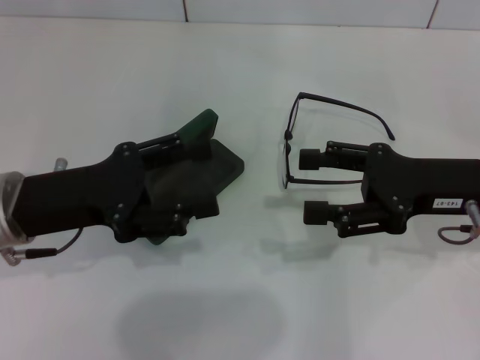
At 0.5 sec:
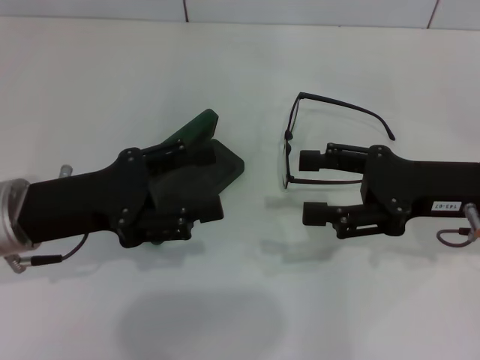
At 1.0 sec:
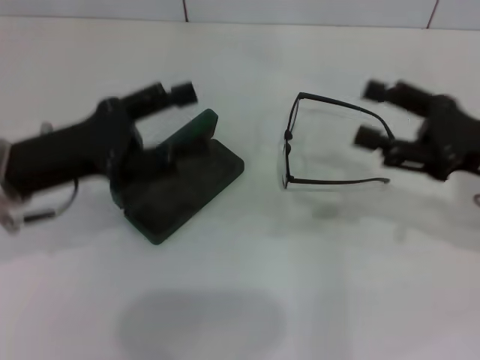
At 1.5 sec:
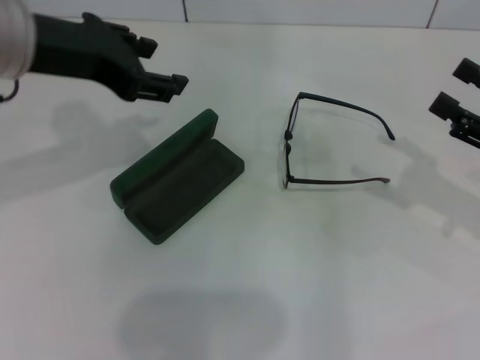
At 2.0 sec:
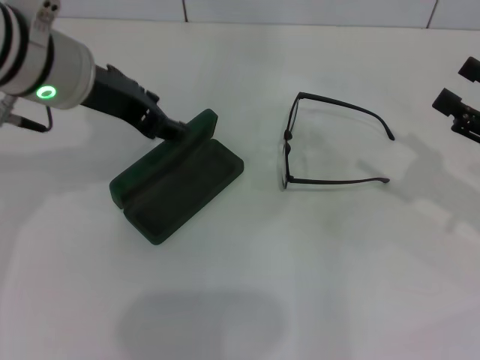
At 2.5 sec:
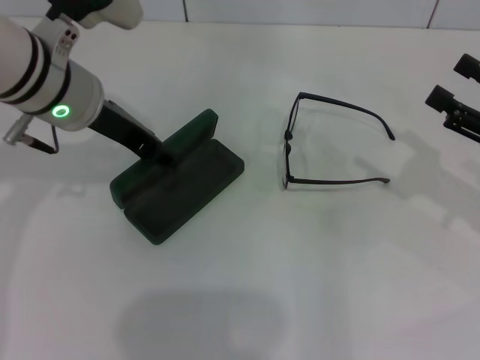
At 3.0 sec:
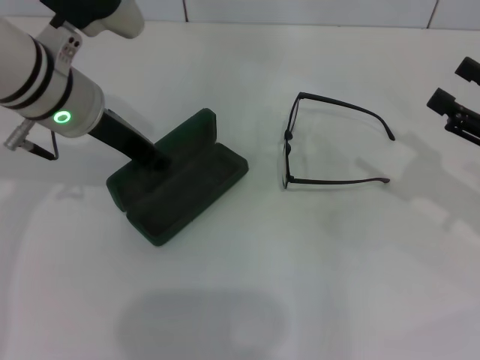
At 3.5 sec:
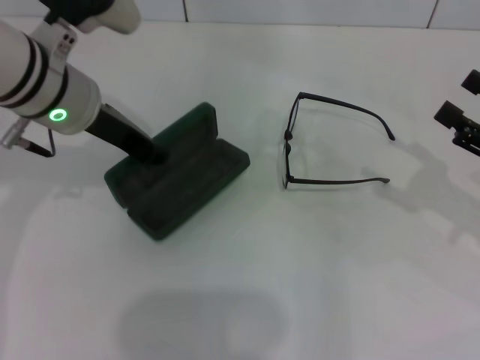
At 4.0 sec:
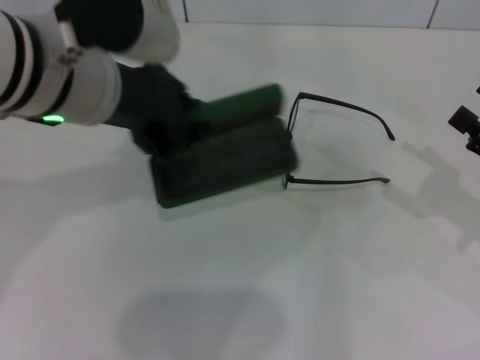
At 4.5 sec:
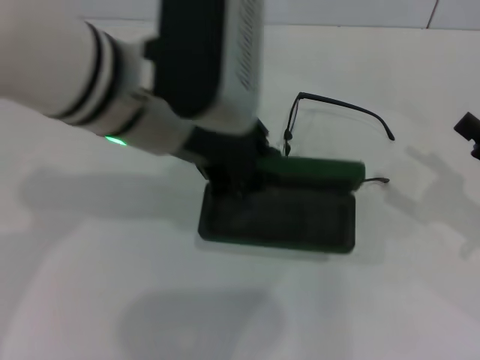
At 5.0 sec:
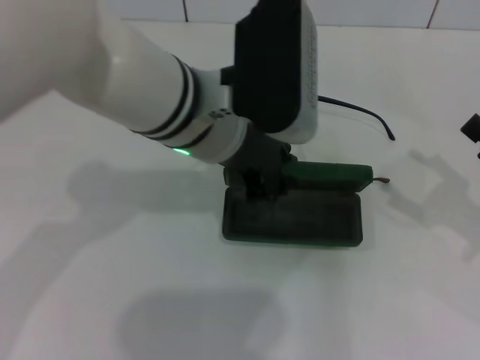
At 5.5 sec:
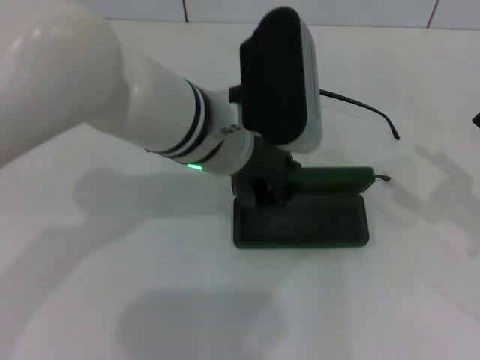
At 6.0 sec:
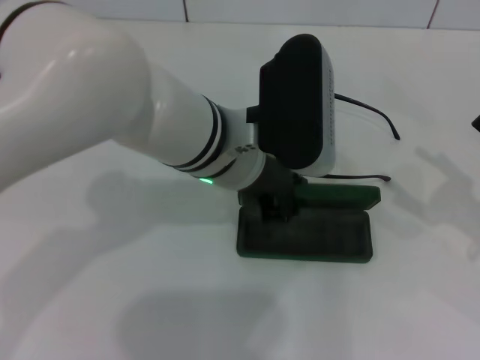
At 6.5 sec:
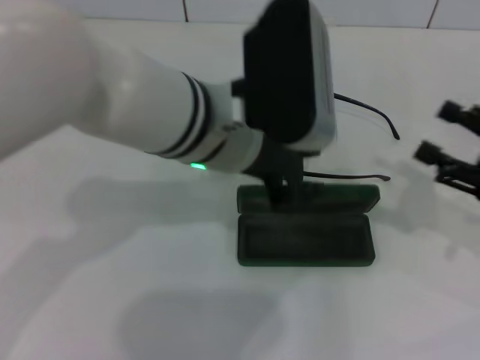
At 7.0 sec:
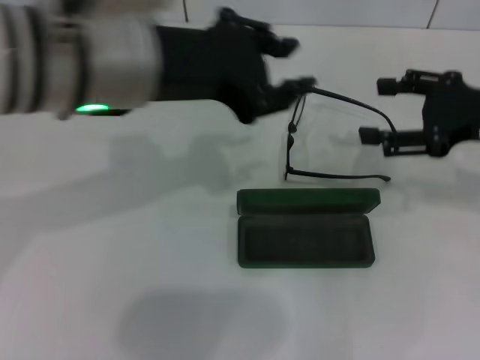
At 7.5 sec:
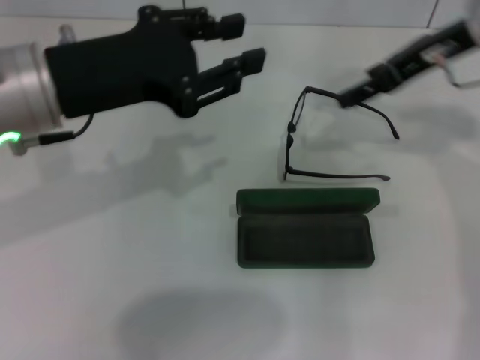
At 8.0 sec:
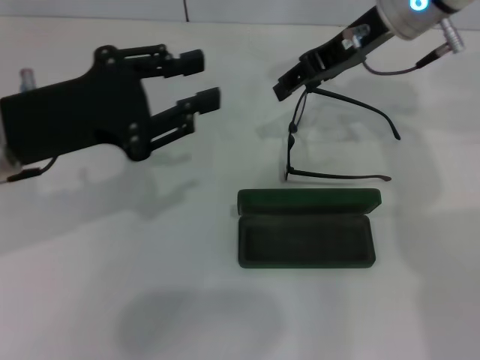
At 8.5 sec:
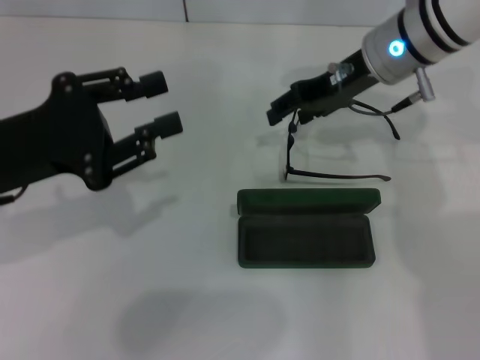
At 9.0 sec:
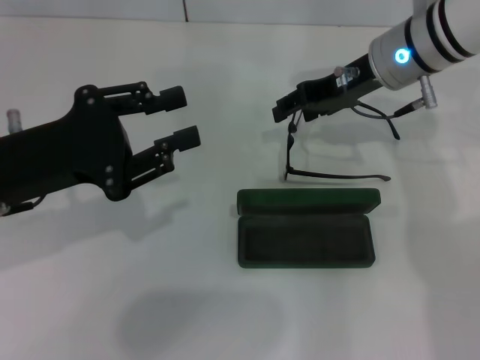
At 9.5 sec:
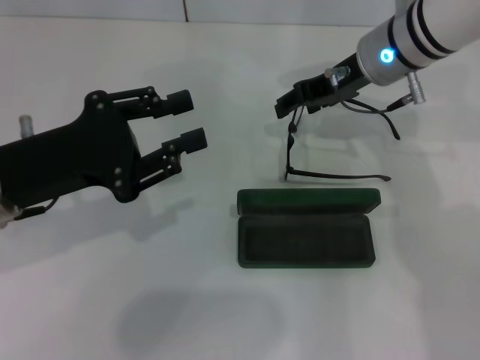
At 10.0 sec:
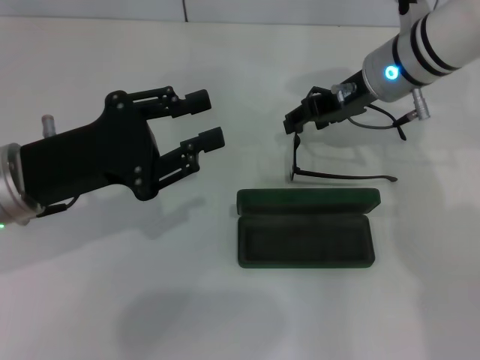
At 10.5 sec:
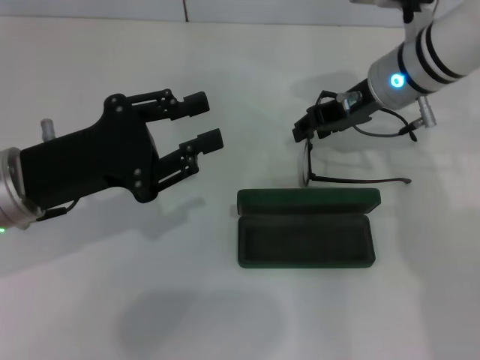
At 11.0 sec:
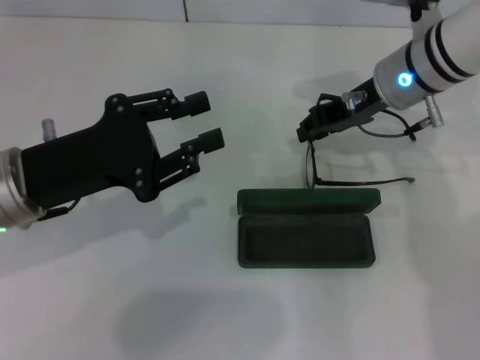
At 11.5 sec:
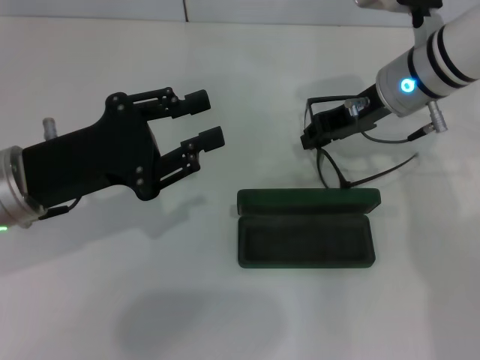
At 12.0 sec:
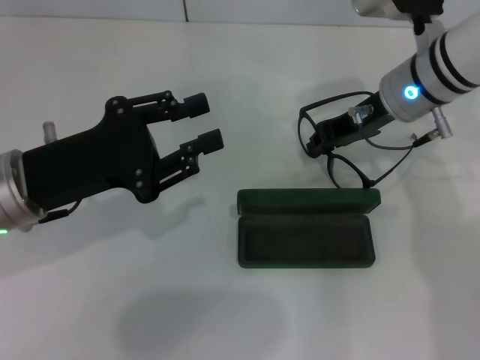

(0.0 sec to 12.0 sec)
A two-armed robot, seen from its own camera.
Step, 0.0 sec - 3.0 sec: Grab the glasses case with your left hand.
Step, 3.5 sec - 6.0 sec: Place the glasses case in the center of the table with your left hand.
Step, 6.5 sec - 11.0 sec: Grab the eyeglass frame with your right hand.
0.0 sec - 2.0 sec: The left gripper travels upward, forward and to the right by about 15 cm, while the right gripper heads to the right, covering roughly 10 cm.
2.0 sec - 4.0 sec: The left gripper moves about 5 cm, and closes its fingers.
4.0 sec - 6.0 sec: The left gripper travels to the right and downward by some 15 cm.
6.0 sec - 8.0 sec: The right gripper shifts roughly 35 cm to the left, forward and upward, while the left gripper moves to the left, approximately 20 cm.
8.0 sec - 10.0 sec: The left gripper goes roughly 5 cm downward, while the right gripper travels downward by some 10 cm.
10.0 sec - 12.0 sec: The right gripper closes up.

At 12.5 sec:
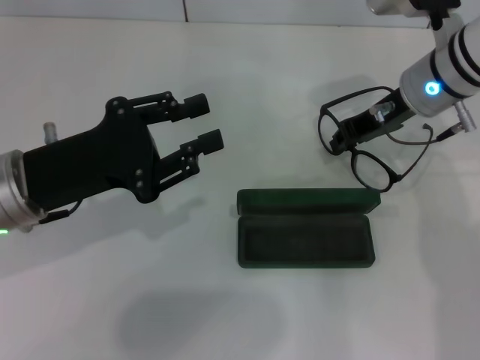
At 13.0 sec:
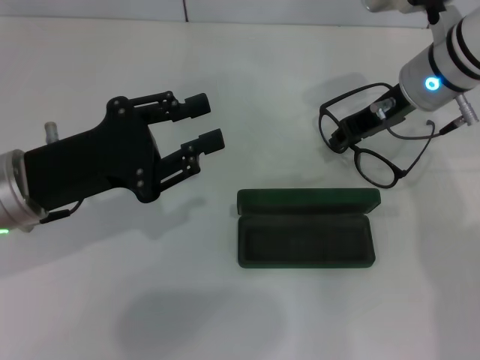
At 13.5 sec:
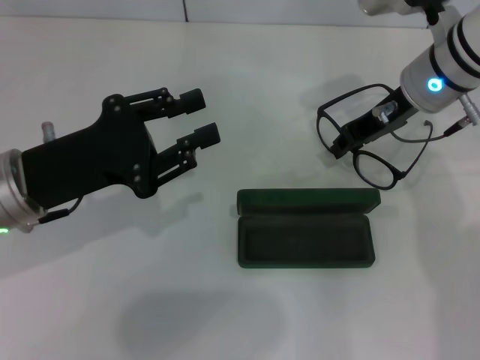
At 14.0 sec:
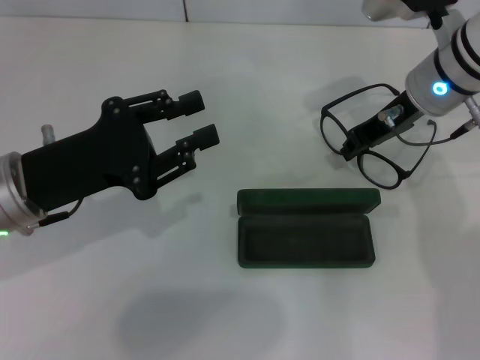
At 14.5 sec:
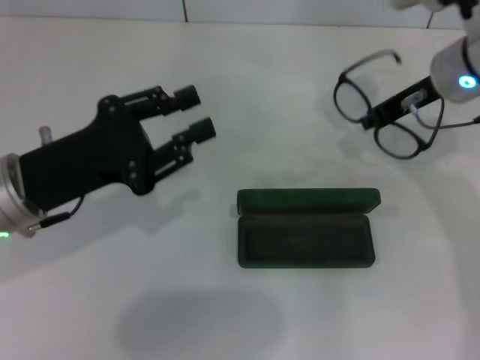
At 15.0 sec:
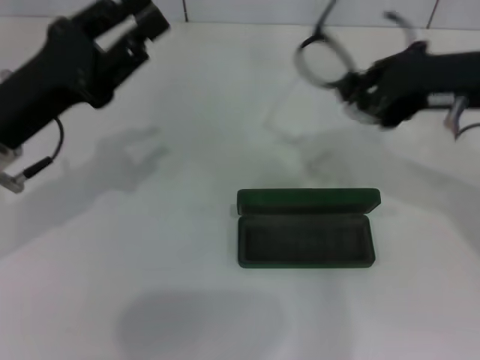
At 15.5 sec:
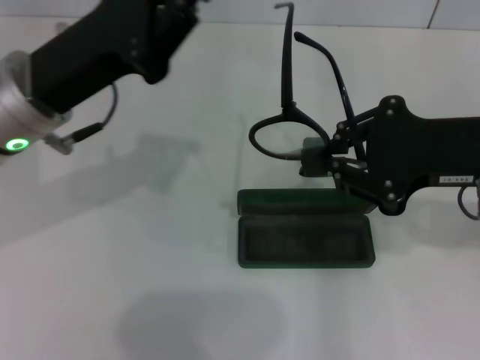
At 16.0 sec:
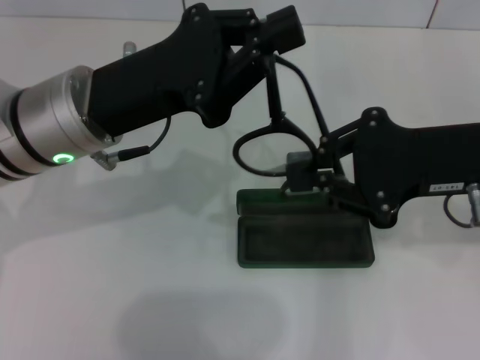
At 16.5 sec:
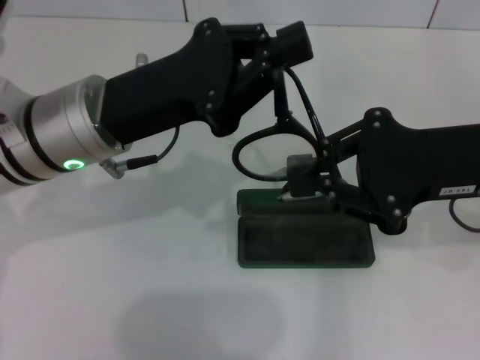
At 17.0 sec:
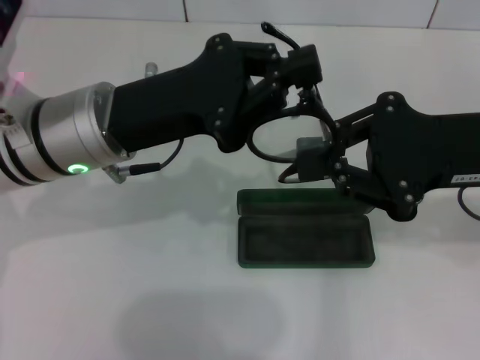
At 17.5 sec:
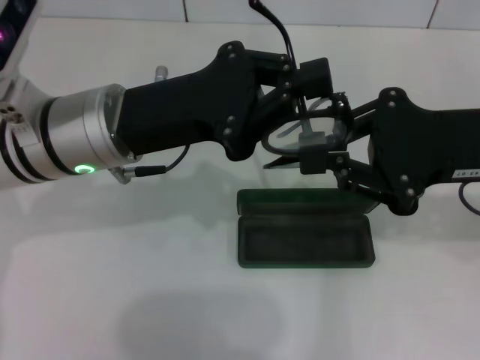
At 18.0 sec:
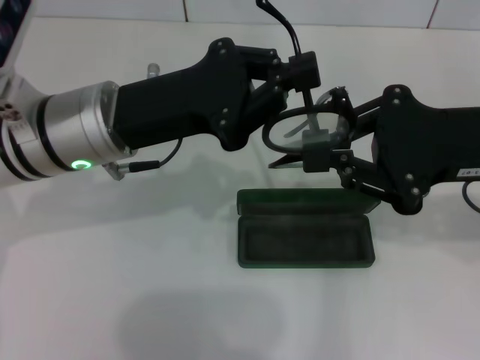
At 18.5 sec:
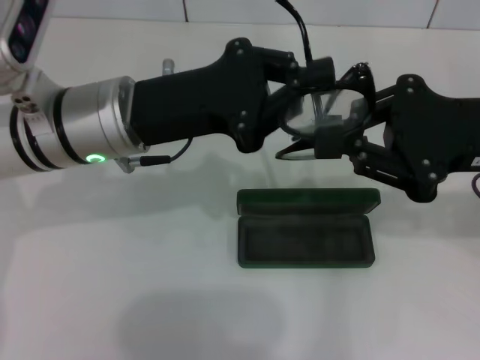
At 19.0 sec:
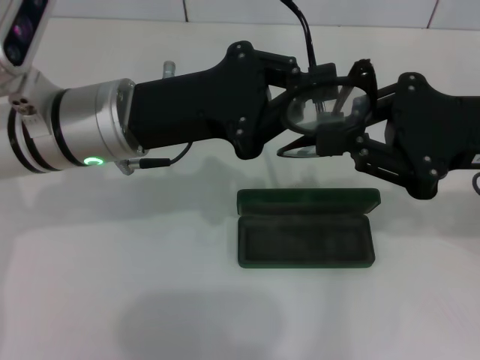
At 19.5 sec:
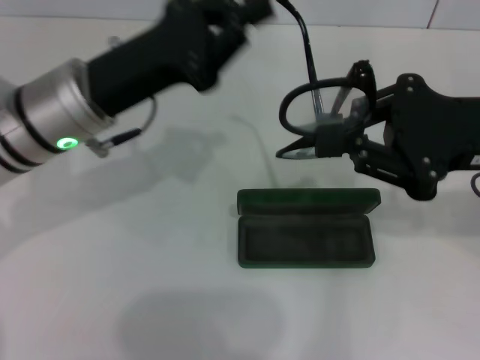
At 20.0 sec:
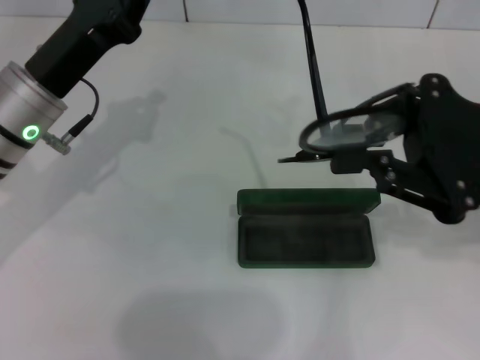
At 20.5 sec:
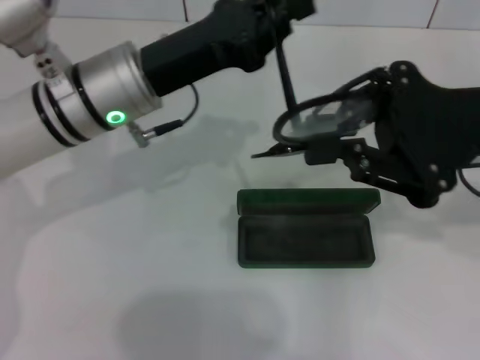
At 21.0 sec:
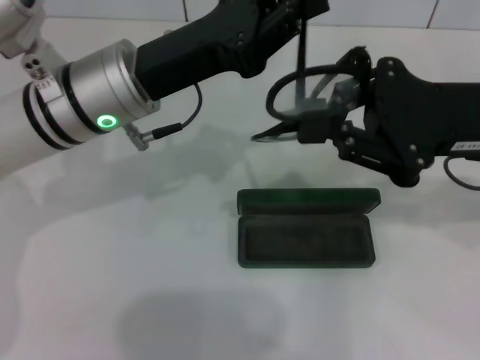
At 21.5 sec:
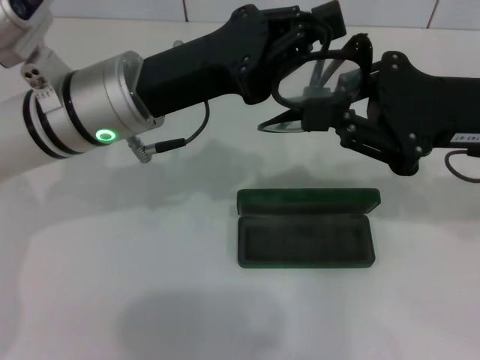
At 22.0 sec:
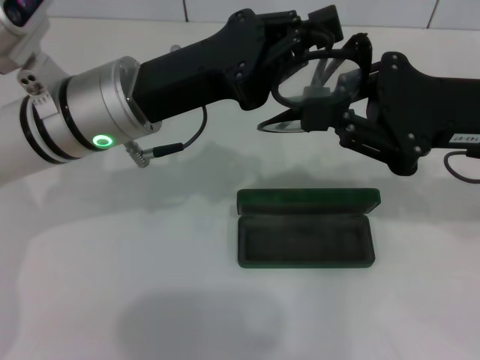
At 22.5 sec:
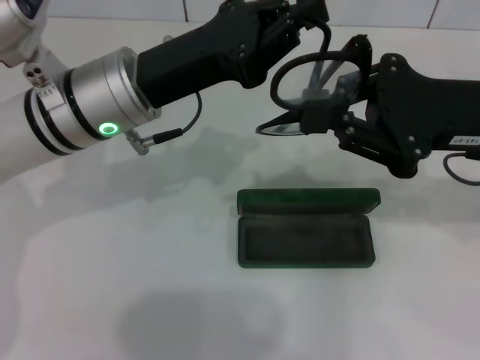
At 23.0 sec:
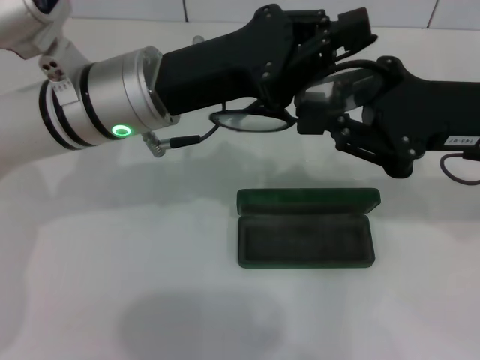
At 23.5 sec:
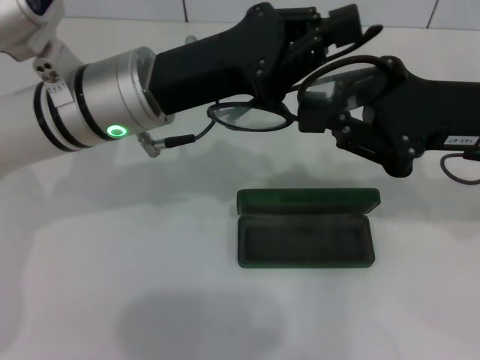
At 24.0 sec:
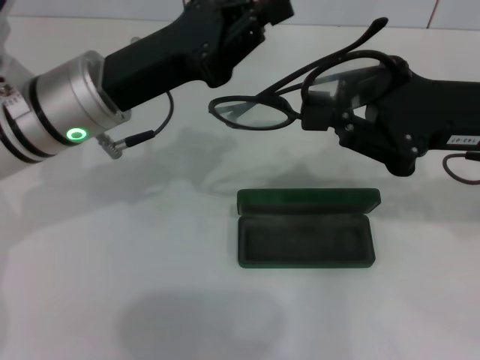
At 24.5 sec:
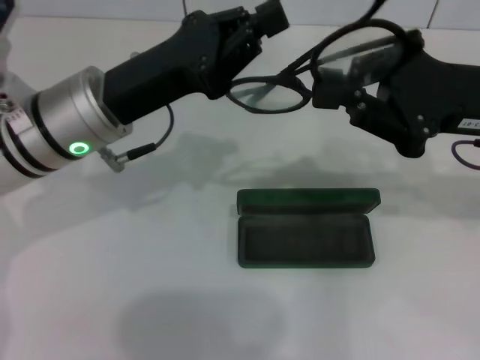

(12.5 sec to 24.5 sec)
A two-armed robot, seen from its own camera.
Step, 12.5 sec - 21.5 sec: Fold the frame with your left hand.
12.5 sec - 14.5 sec: The grippers move only a little.
14.5 sec - 16.5 sec: The left gripper moves to the right, about 5 cm, and closes its fingers, while the right gripper shifts some 15 cm backward.
18.5 sec - 20.5 sec: The left gripper moves about 5 cm to the left and comes back.
20.5 sec - 22.5 sec: There are only small adjustments of the grippers.

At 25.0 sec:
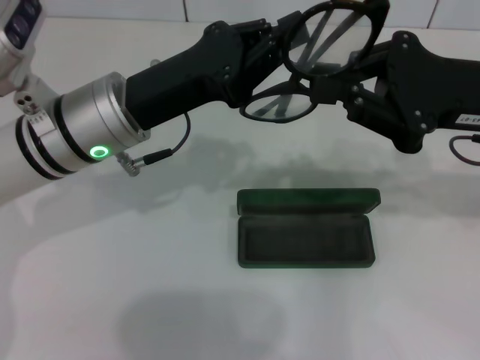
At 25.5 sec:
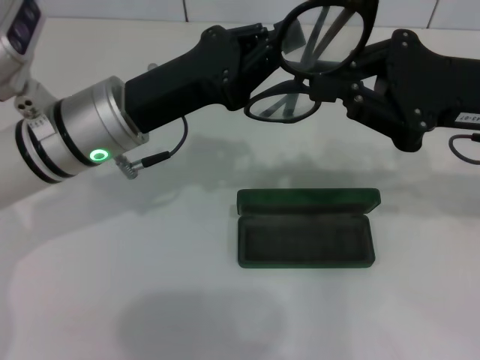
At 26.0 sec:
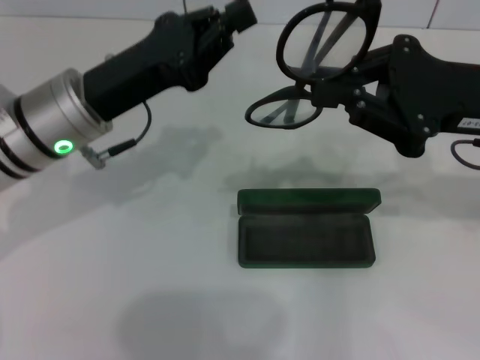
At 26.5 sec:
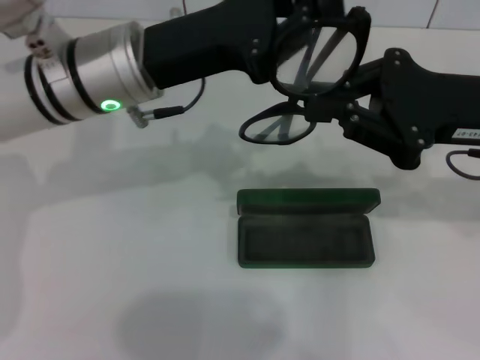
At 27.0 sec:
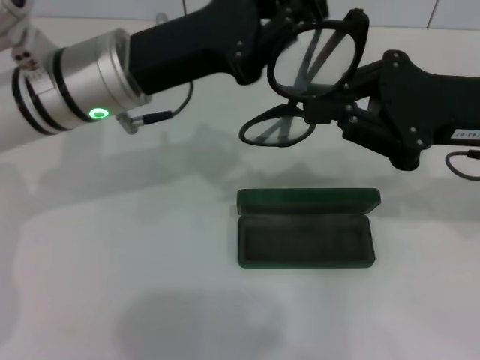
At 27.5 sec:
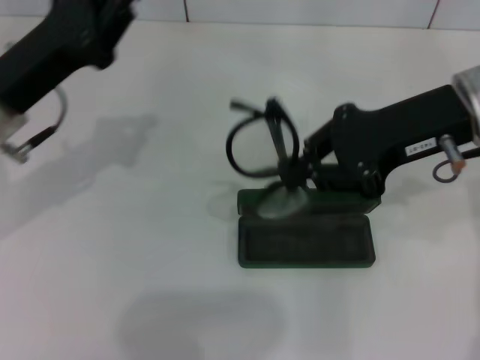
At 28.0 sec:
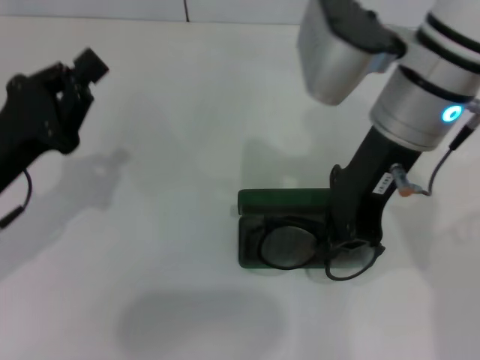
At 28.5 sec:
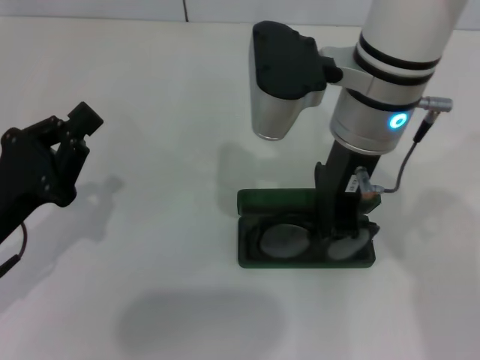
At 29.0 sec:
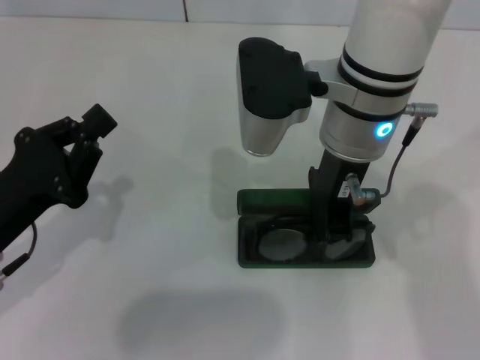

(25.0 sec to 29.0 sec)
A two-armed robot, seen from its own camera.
27.0 sec - 29.0 sec: The right gripper is displaced to the left by approximately 15 cm. Meanwhile the left gripper shifts roughly 20 cm backward, to the left and downward.
